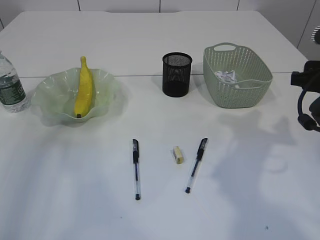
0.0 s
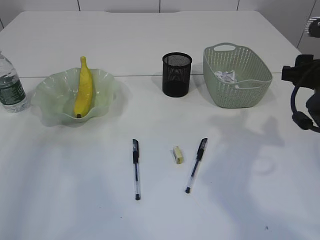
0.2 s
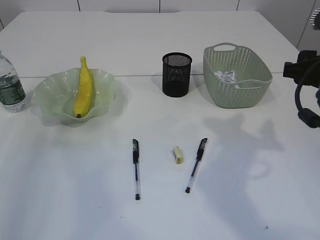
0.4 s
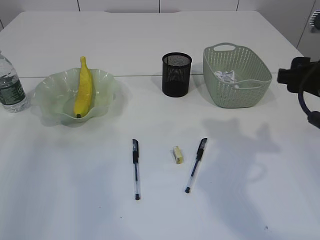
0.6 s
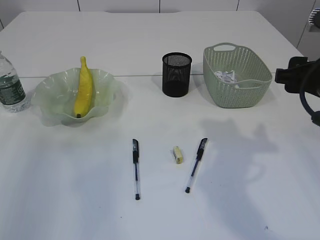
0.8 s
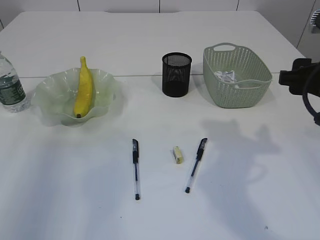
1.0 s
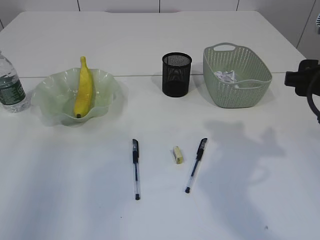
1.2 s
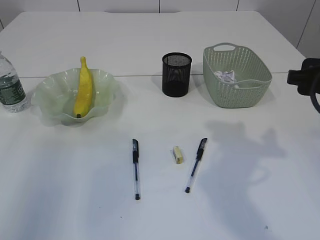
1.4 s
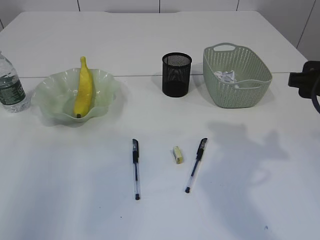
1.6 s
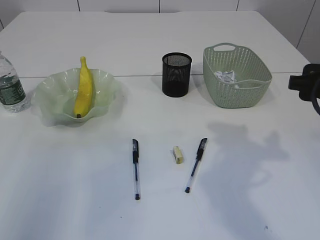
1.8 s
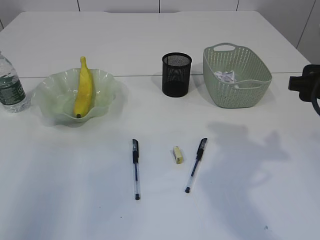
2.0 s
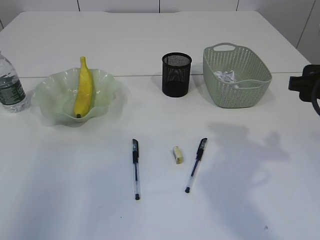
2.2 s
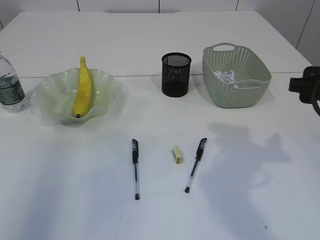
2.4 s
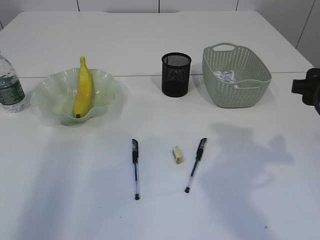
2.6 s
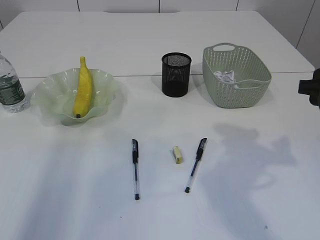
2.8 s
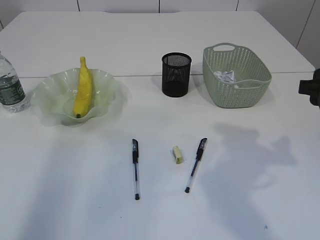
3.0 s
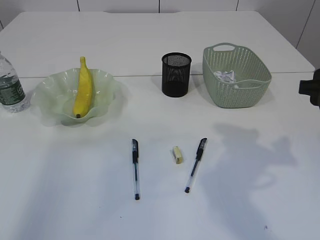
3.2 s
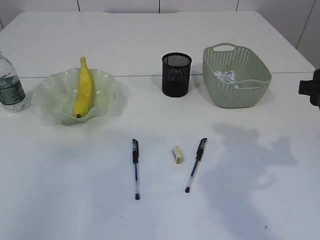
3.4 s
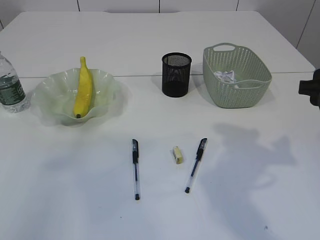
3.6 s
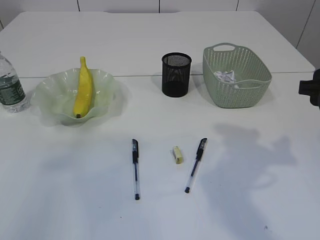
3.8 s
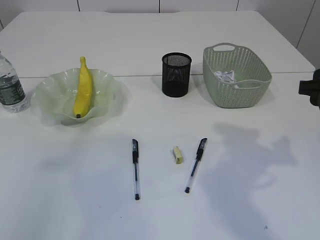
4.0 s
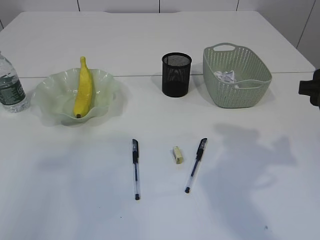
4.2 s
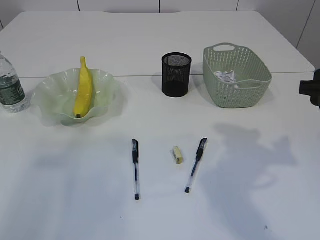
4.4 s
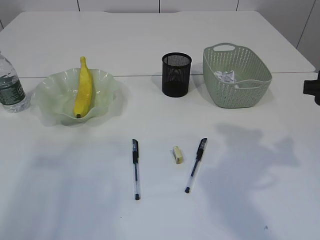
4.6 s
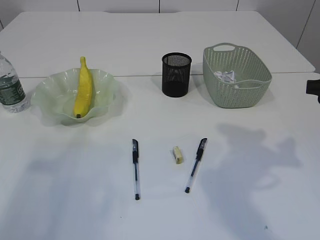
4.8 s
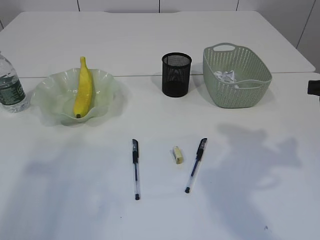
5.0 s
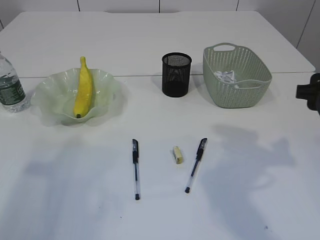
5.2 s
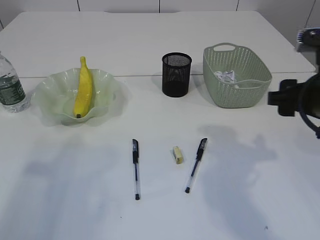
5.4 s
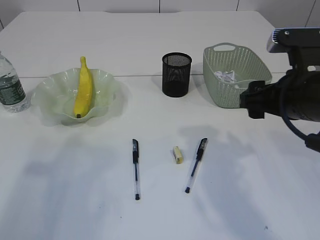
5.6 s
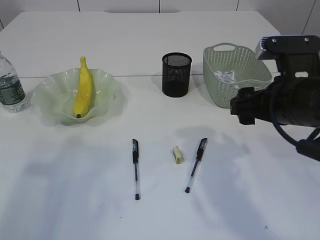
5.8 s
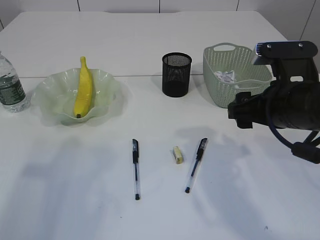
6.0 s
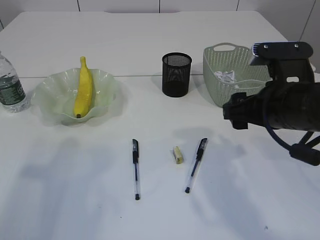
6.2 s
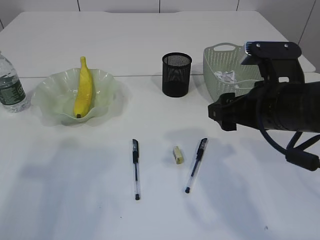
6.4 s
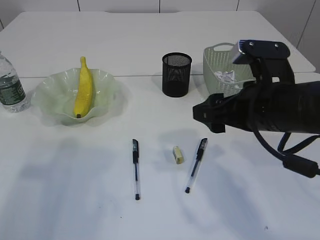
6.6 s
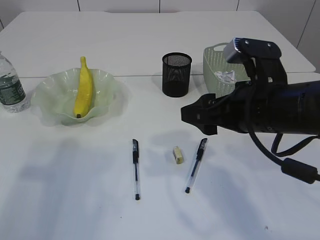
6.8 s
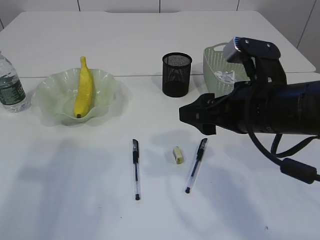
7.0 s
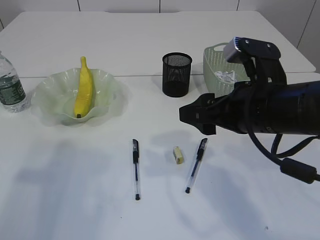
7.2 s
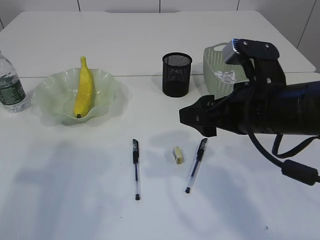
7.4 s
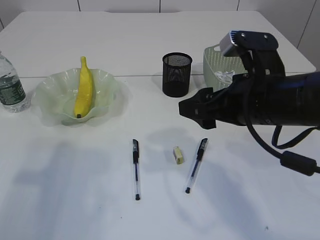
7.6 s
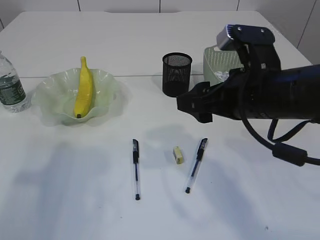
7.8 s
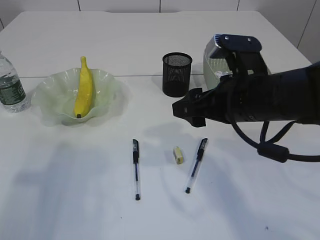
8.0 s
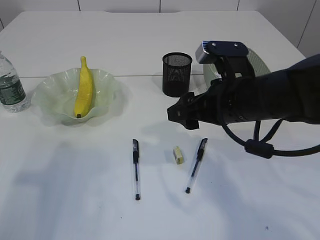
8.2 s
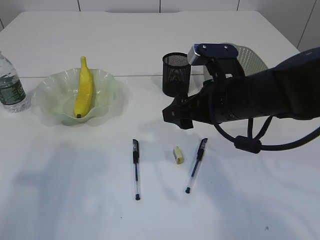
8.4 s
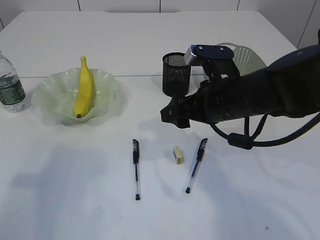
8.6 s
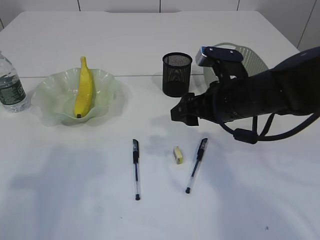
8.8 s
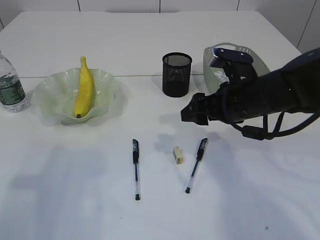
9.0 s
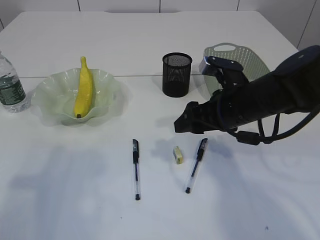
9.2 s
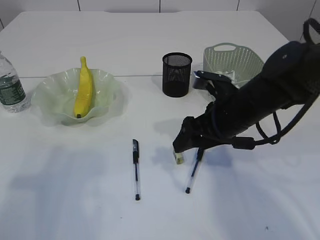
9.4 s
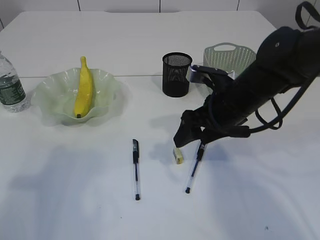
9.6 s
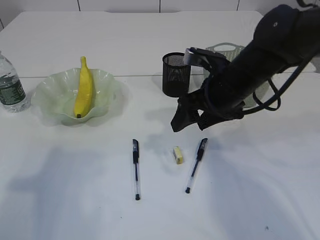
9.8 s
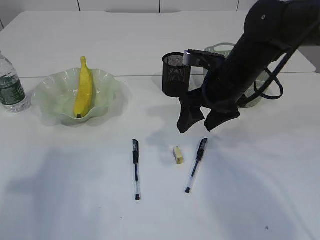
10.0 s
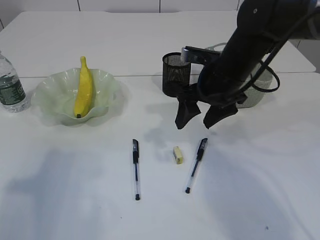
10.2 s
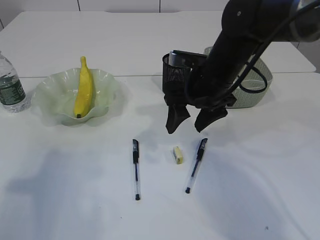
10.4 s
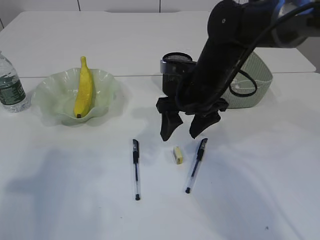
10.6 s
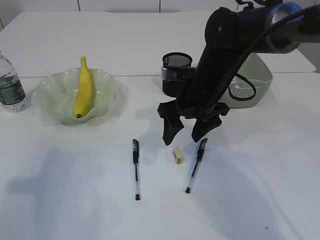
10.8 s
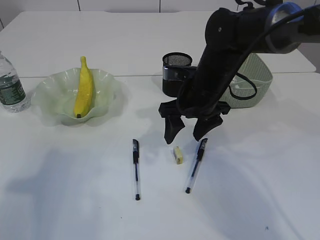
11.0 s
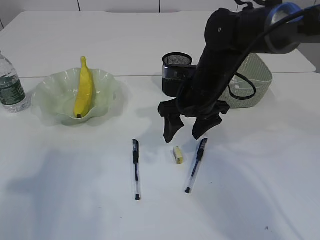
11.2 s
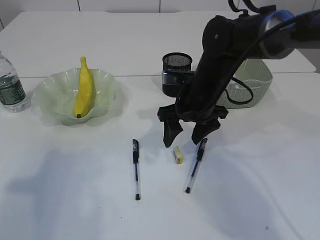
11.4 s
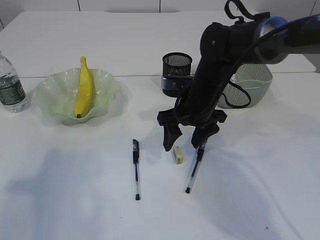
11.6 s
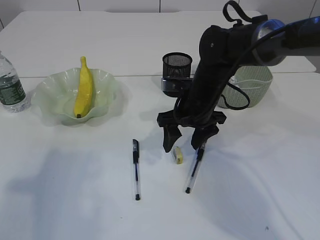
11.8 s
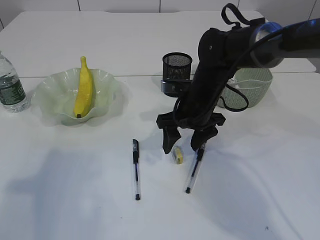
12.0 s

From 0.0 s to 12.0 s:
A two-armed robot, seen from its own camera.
From 0.0 s to 1.6 s: The right gripper changes place by approximately 5 cm.
From 4.4 s to 6.0 s: The right gripper goes about 5 cm to the left.
From 7.6 s to 9.0 s: The right gripper moves forward, approximately 5 cm.
From 9.0 s to 10.4 s: The right gripper ends up approximately 5 cm from where it was.
From 10.4 s to 12.0 s: The right gripper moves downward, roughly 5 cm.

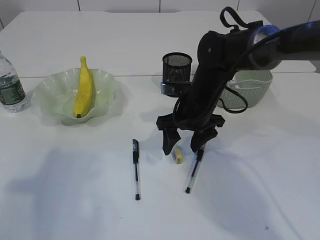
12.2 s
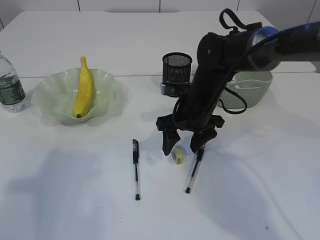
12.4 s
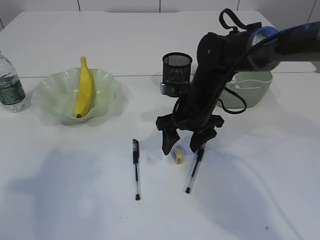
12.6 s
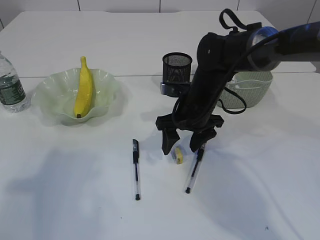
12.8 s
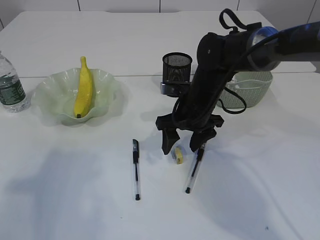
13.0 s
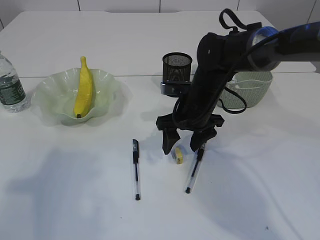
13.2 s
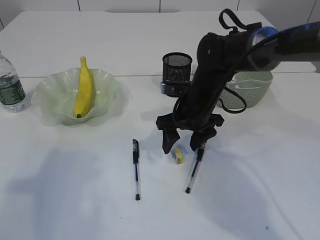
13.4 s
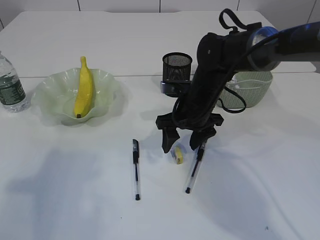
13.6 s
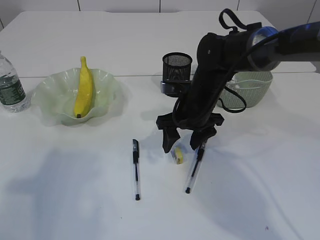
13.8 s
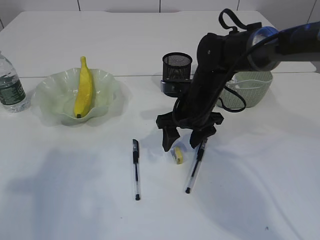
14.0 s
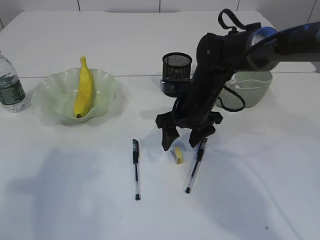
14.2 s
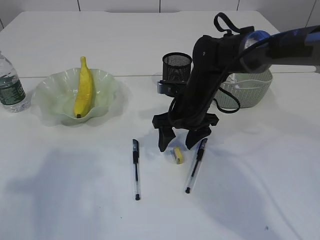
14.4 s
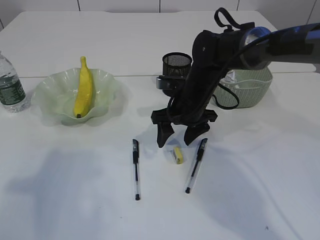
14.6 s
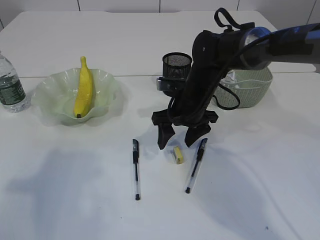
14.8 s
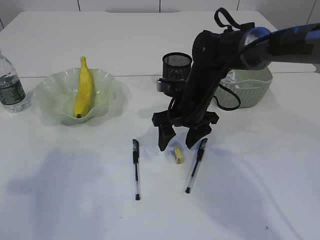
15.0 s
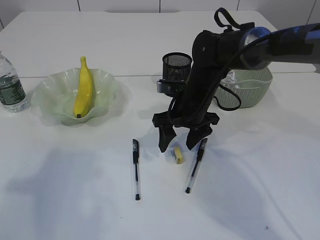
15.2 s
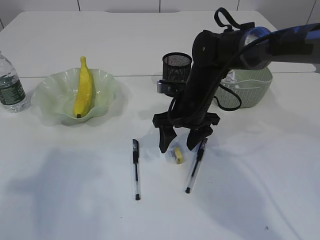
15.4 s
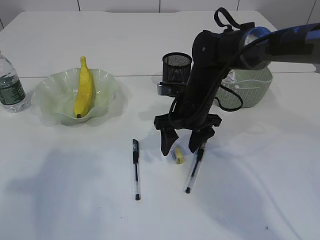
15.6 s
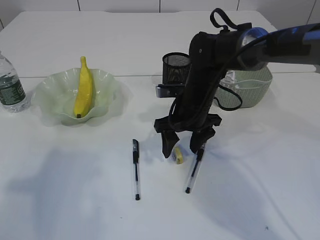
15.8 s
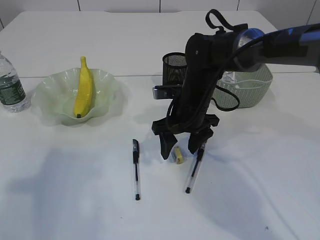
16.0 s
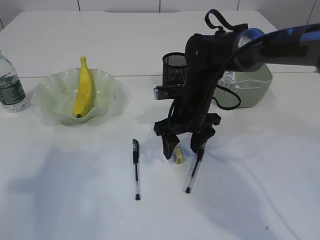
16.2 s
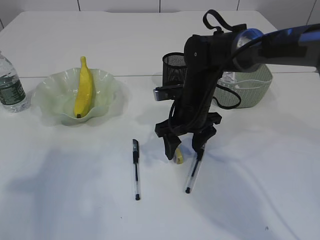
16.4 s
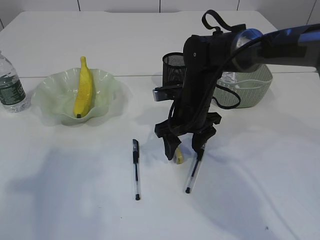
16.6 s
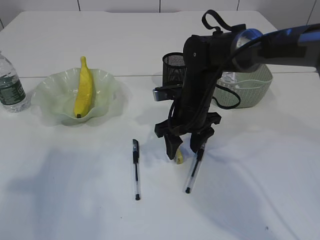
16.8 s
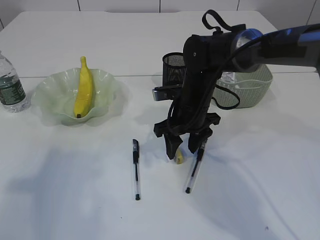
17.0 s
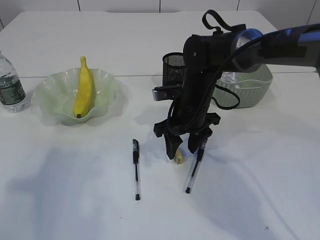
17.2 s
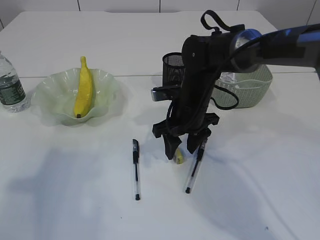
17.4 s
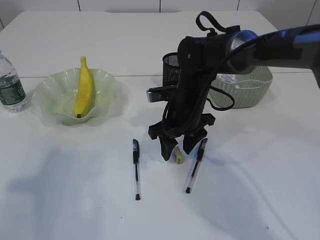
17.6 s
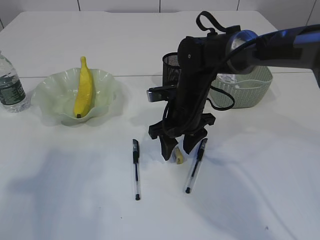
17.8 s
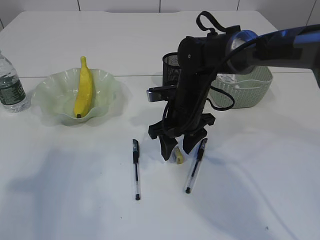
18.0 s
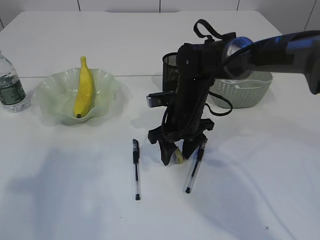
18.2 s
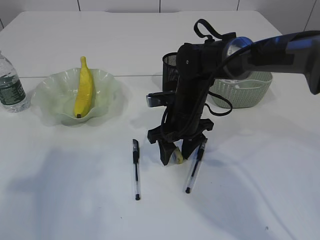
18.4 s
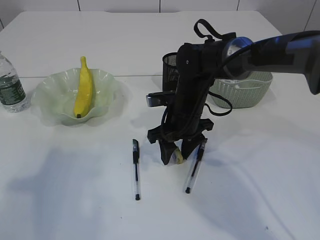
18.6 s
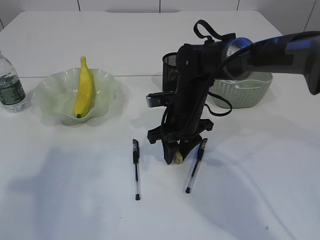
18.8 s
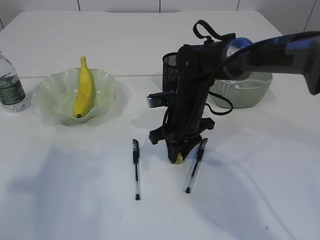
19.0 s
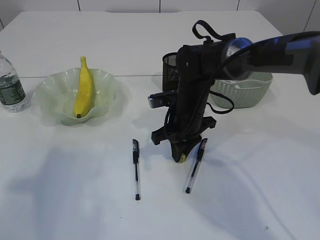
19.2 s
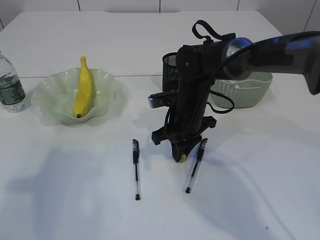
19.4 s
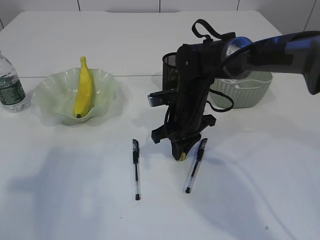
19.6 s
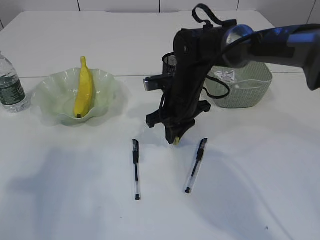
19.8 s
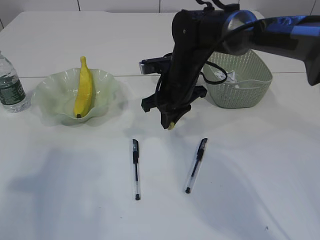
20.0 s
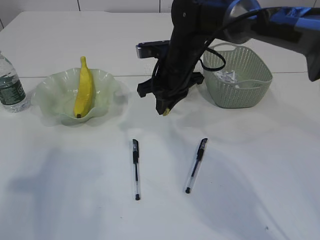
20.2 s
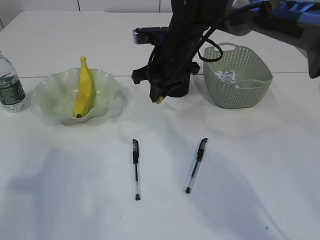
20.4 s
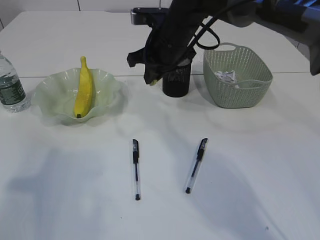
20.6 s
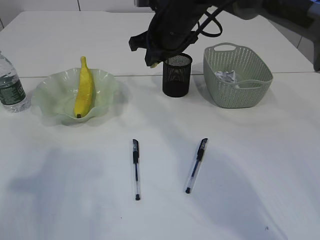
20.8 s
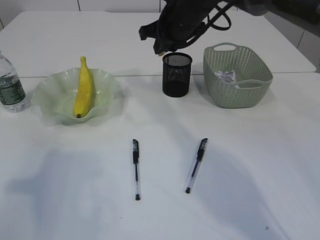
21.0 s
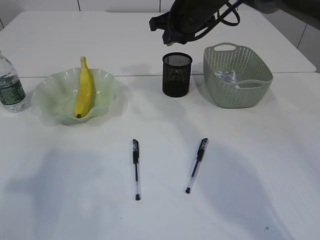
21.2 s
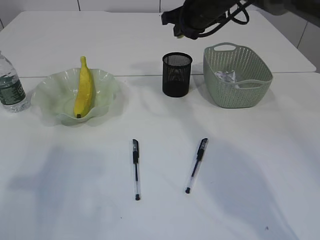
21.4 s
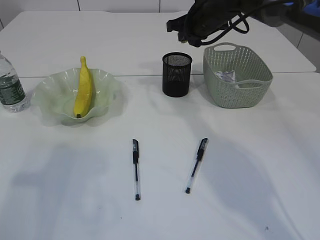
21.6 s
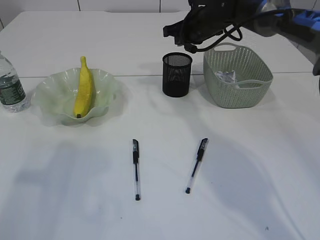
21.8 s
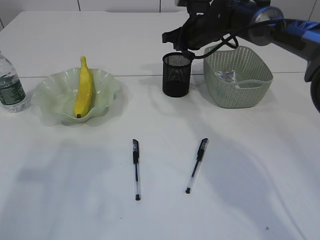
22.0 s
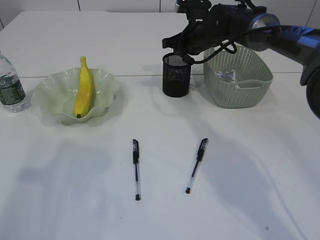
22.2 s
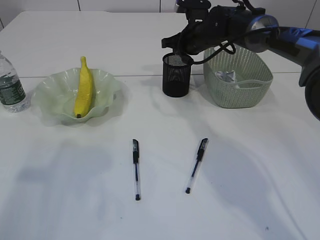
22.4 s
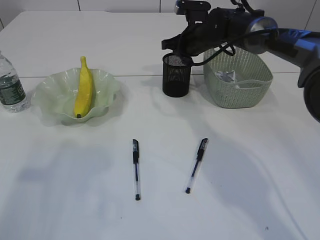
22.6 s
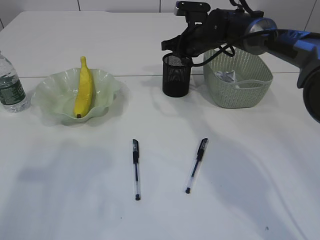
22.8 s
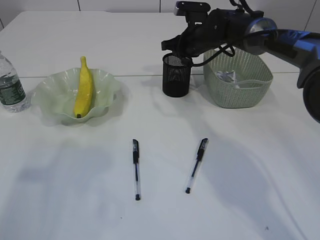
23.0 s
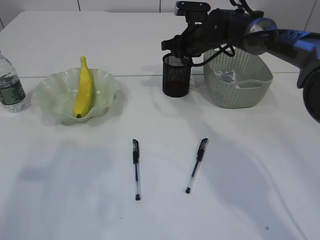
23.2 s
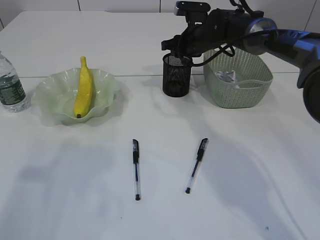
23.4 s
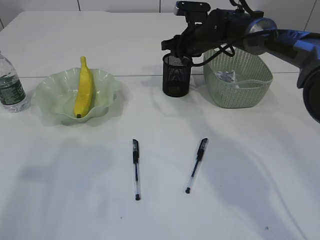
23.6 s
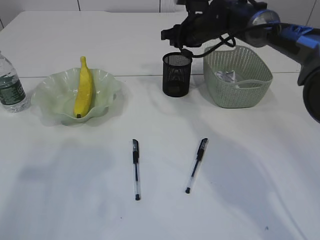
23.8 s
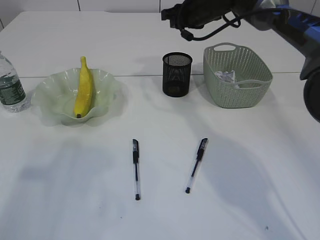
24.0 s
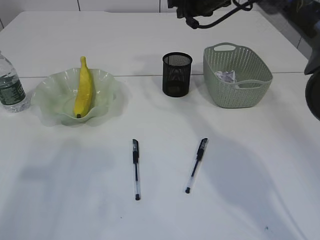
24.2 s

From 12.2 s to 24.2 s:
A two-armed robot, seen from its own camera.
Step, from 12.2 s to 19.8 s: Pick up the eraser.
Step, from 20.0 s to 23.4 s: Place the eraser into the pen holder.
From 12.2 s to 13.8 s: Both grippers stay put.
From 13.8 s to 18.2 s: The grippers move only a little.
From 18.2 s to 19.8 s: The right gripper closes.
From 19.8 s to 21.2 s: The right gripper is displaced upward and forward by about 15 cm.
From 21.2 s to 22.6 s: The right gripper goes approximately 10 cm downward and forward.
From 22.6 s to 24.2 s: The right gripper travels upward by approximately 10 cm.
